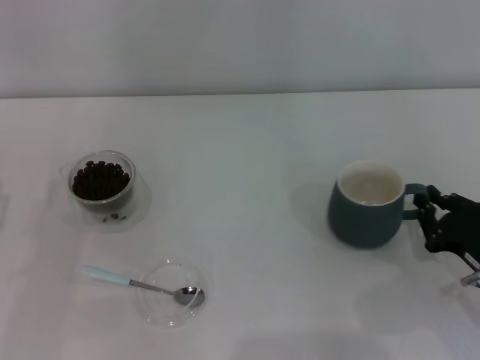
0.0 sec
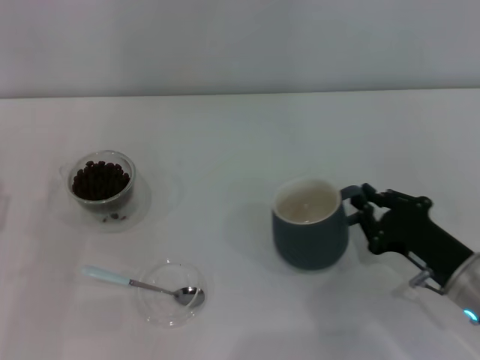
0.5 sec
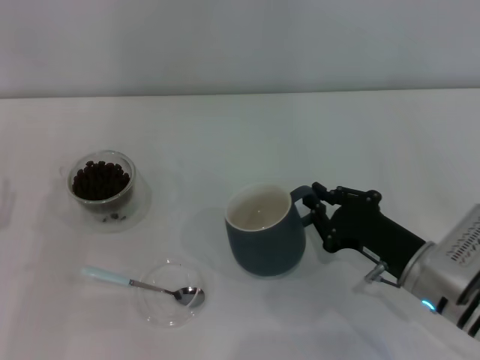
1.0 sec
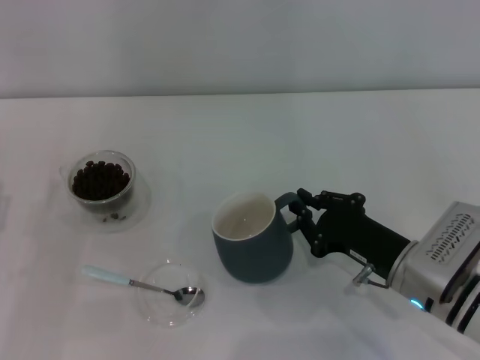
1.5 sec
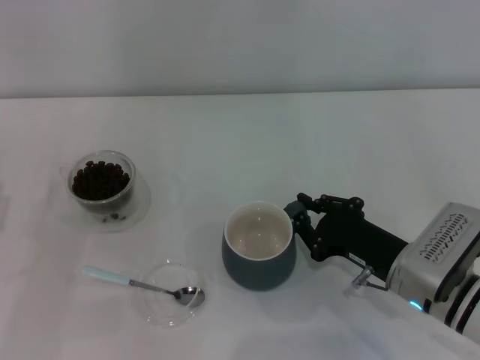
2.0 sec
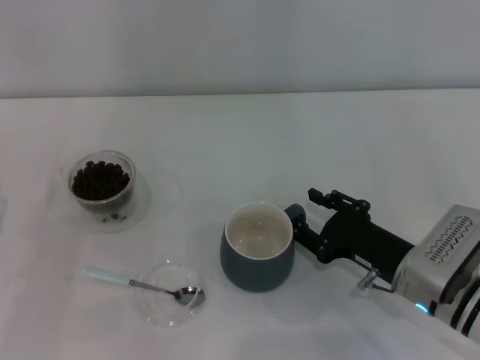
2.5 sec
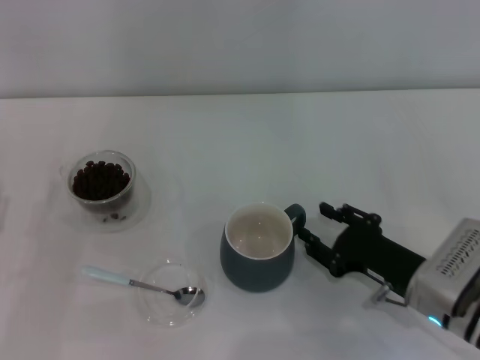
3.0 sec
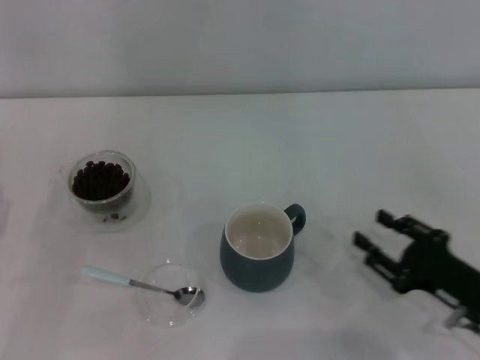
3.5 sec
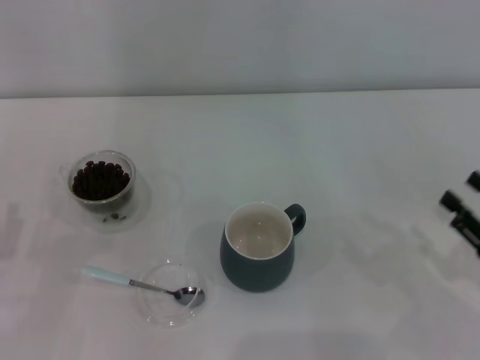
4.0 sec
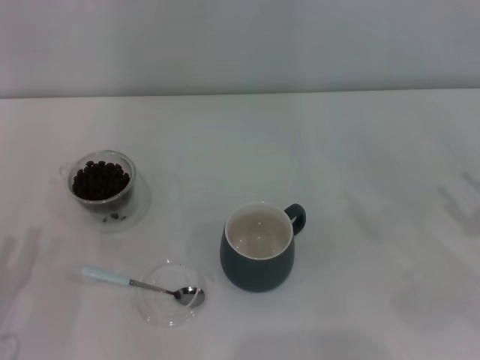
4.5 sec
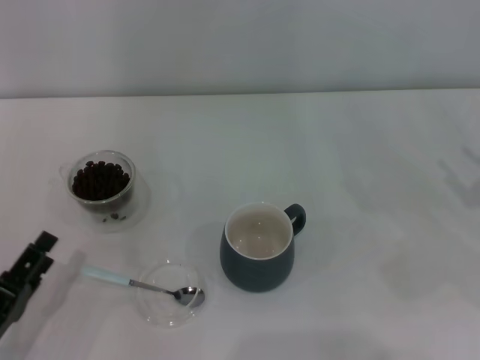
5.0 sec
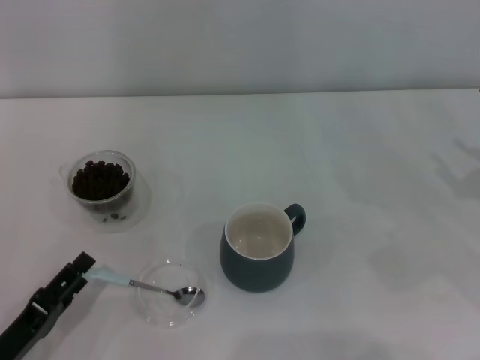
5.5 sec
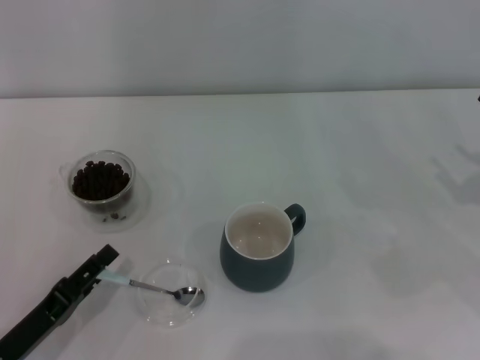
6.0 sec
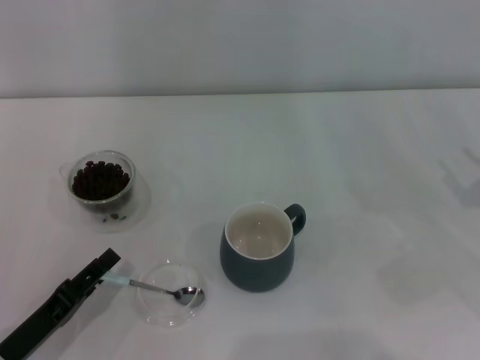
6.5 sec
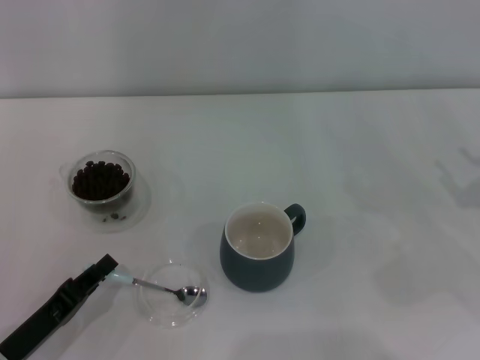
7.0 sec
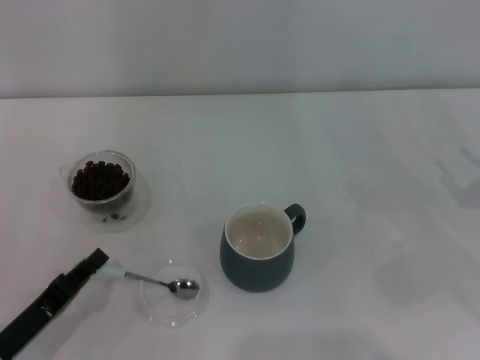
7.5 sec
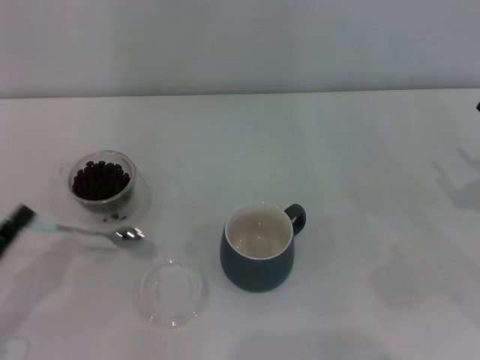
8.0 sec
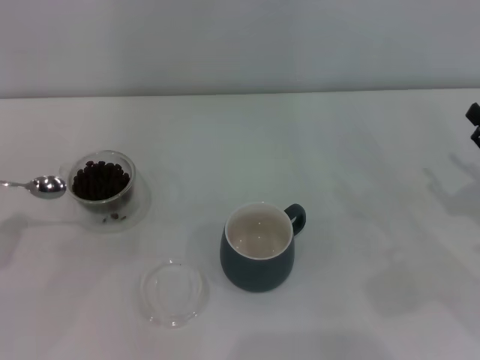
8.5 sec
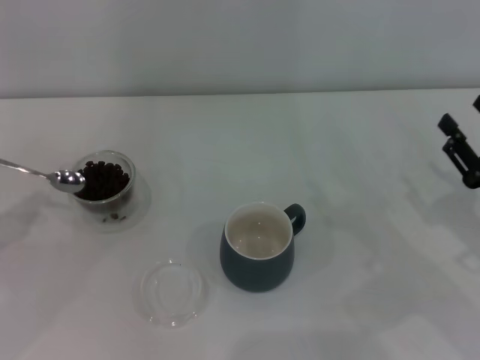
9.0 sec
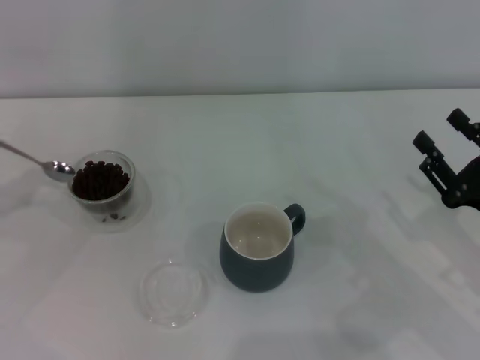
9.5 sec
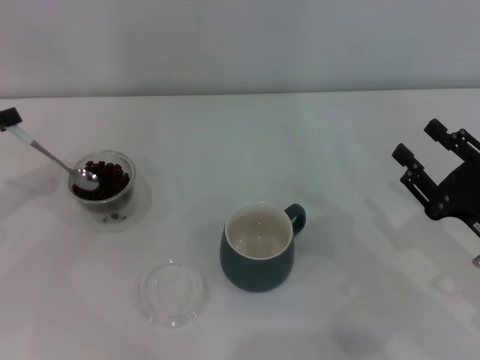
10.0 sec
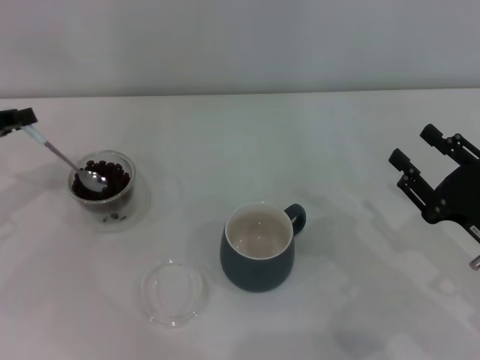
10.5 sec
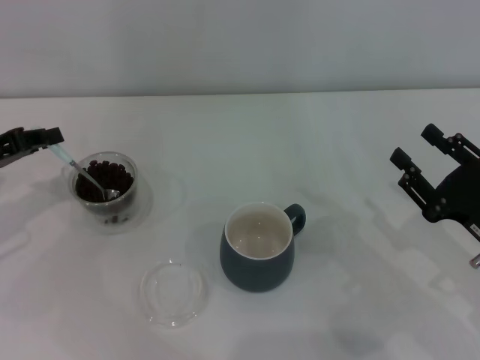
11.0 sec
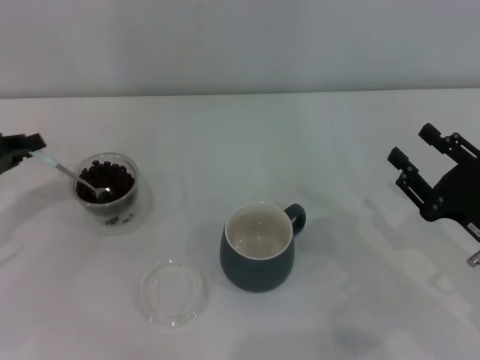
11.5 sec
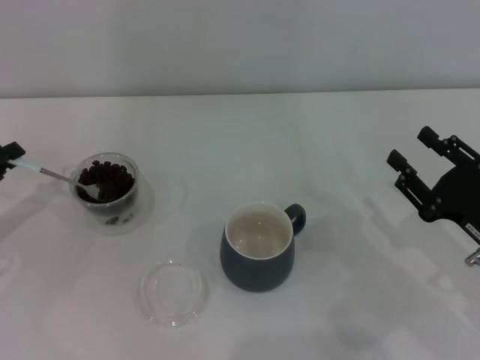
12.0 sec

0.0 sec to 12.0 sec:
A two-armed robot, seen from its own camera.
Task of the whole recording: Use a blue spoon to take out the coffee beans from the glass and pour them into the gray cup.
Step, 0.0 sec to 3.0 sec: Move the cup to the center of view with the left gripper.
Step, 3.5 sec to 7.5 sec: Pick up the spoon with the right gripper.
0.0 sec to 2.0 sec: The right gripper travels to the left by some 10 cm.
2.0 sec to 4.0 sec: The right gripper goes approximately 15 cm to the right and backward, and opens its fingers.
4.0 sec to 6.0 sec: The right gripper heads forward, covering about 10 cm, while the left gripper is displaced to the right by some 5 cm.
6.0 sec to 8.0 sec: The left gripper moves approximately 5 cm, and closes up.
8.0 sec to 10.0 sec: The right gripper shifts some 5 cm to the left. The left gripper travels forward and upward by about 20 cm.
10.0 sec to 12.0 sec: The left gripper moves roughly 5 cm.

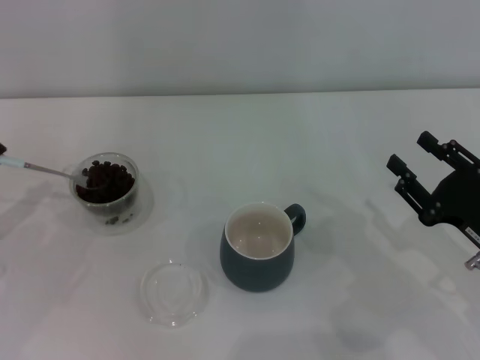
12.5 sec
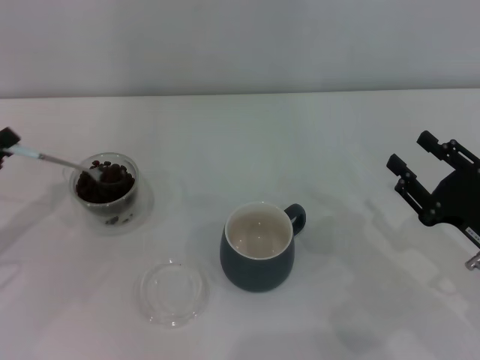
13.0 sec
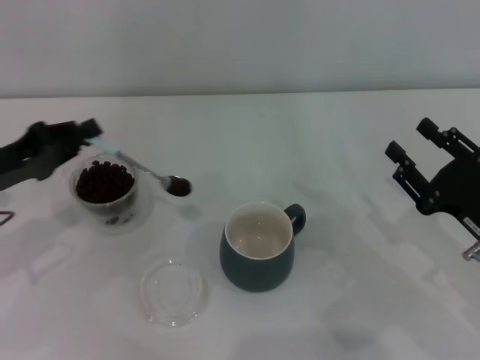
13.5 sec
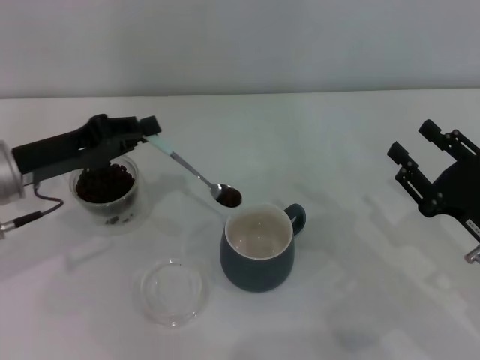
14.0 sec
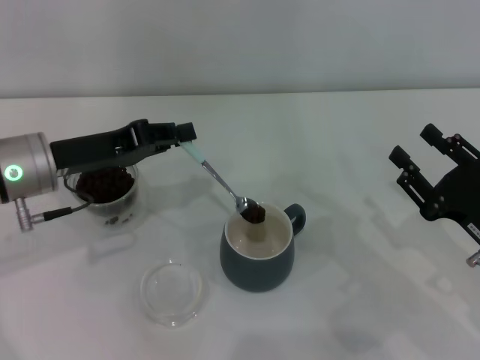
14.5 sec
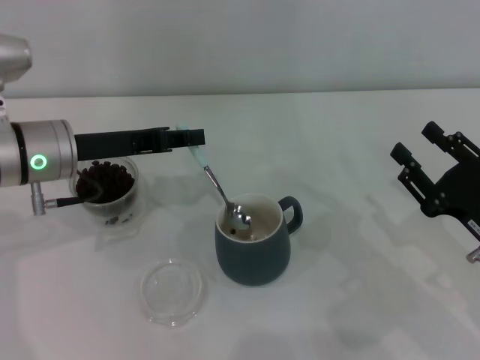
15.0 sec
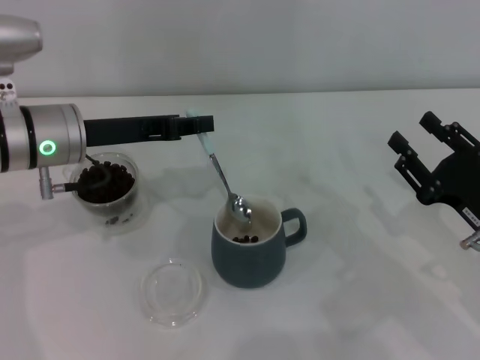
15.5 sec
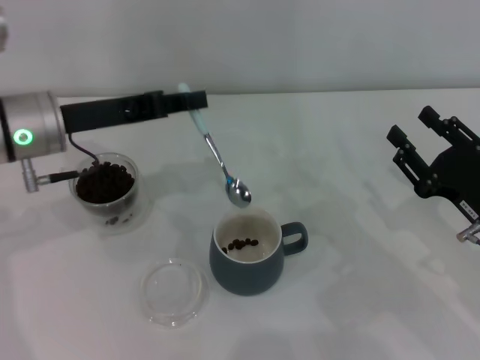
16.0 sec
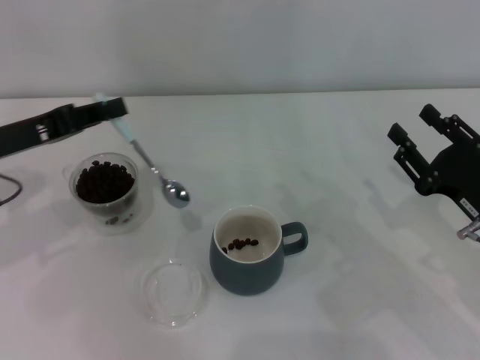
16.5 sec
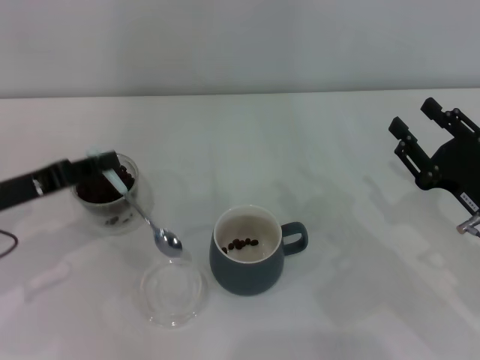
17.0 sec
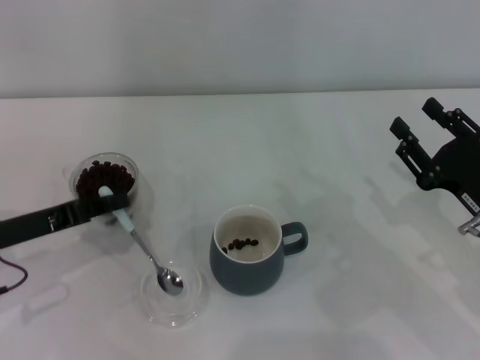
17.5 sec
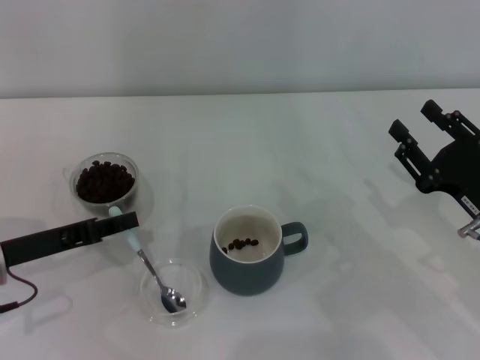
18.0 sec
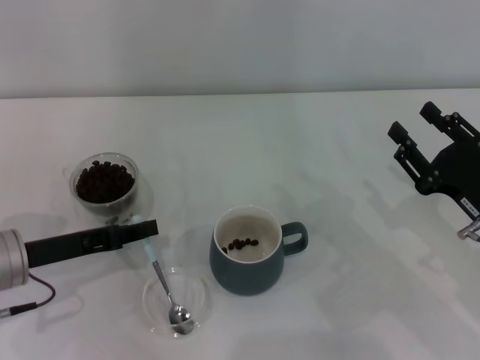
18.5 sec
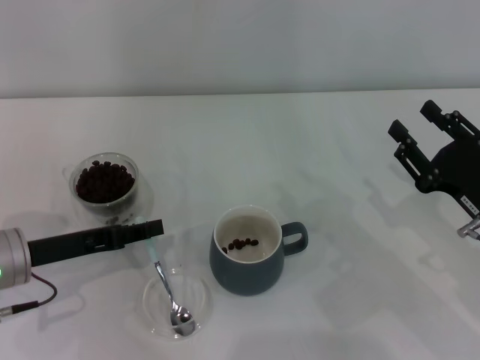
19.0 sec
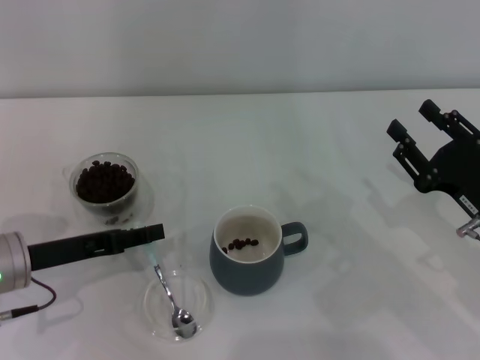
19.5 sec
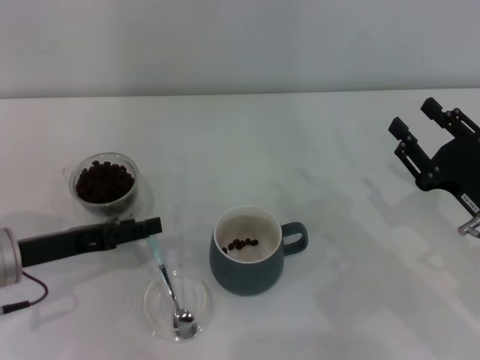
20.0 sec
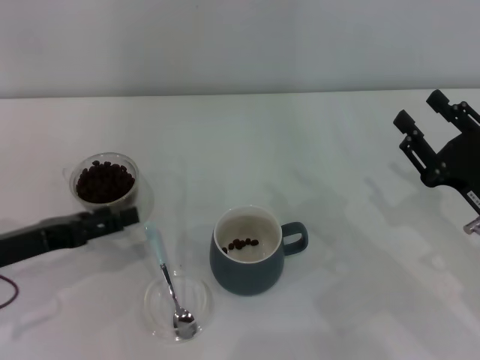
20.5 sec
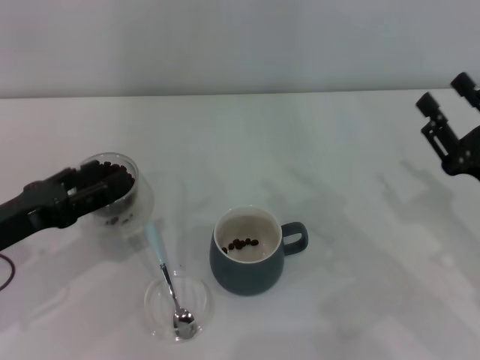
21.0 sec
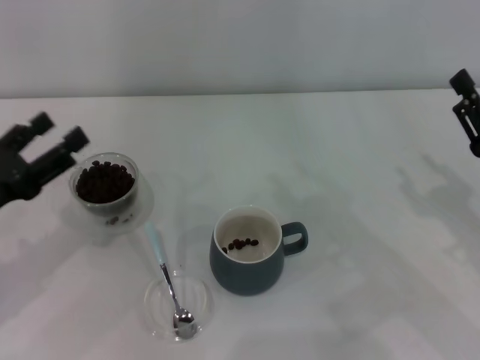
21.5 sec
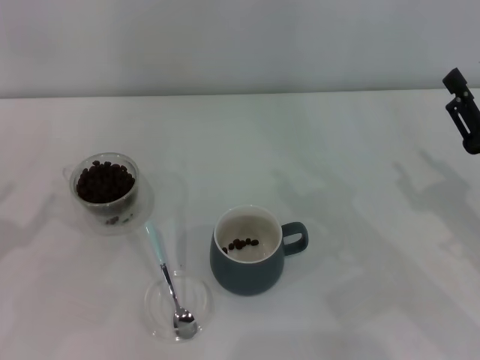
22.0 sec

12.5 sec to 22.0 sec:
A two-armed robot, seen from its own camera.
Task of the whole recording: Use a blue spoon to take out the coffee beans from the glass and pour them into the gray cup.
Step, 12.5 sec to 16.0 sec: Scoop a spoonful of beans into the cup with the right gripper.
12.5 sec to 14.5 sec: The left gripper shifts about 15 cm to the right and forward.
14.5 sec to 16.5 sec: The left gripper moves to the left, roughly 5 cm.
16.5 sec to 18.0 sec: The left gripper goes some 5 cm downward.
18.0 sec to 20.0 sec: The left gripper opens.
20.0 sec to 22.0 sec: The left gripper moves to the left and backward, some 10 cm.

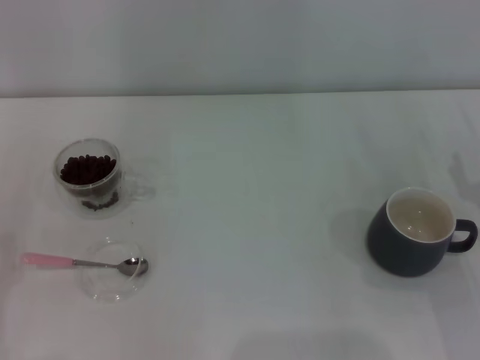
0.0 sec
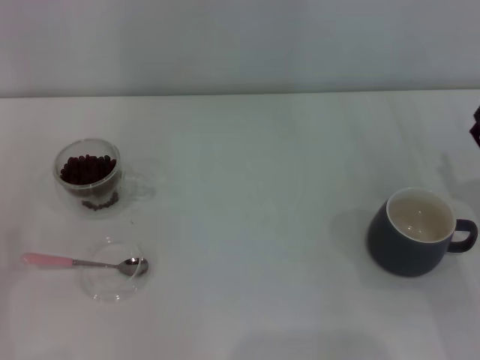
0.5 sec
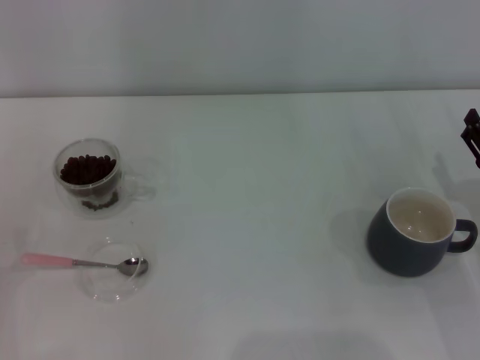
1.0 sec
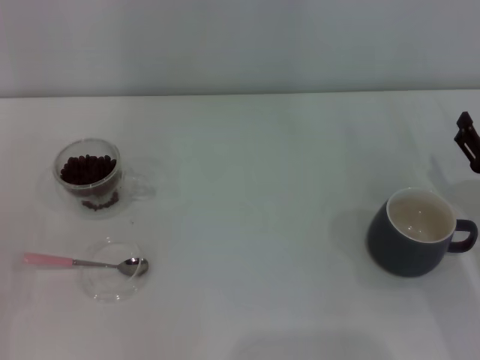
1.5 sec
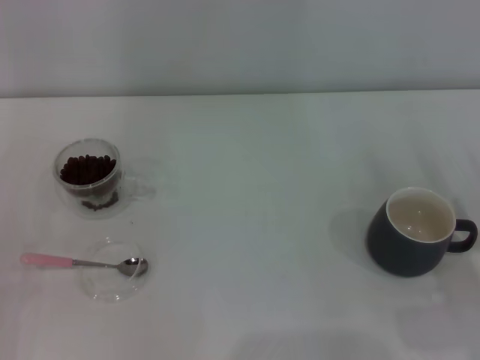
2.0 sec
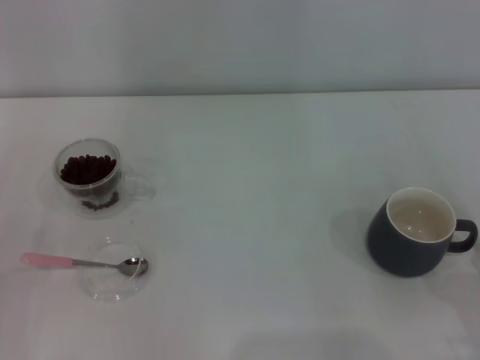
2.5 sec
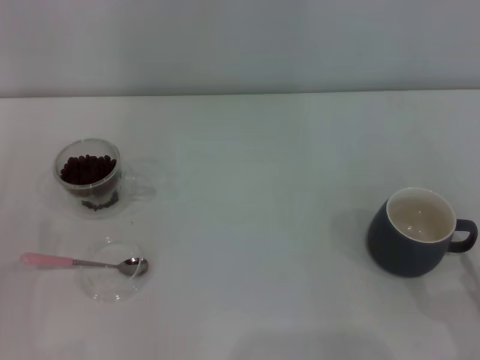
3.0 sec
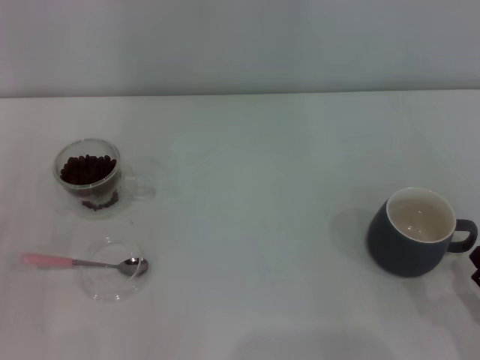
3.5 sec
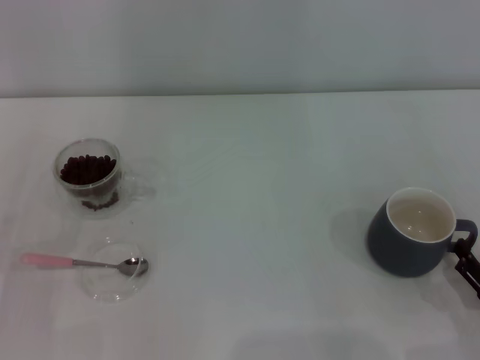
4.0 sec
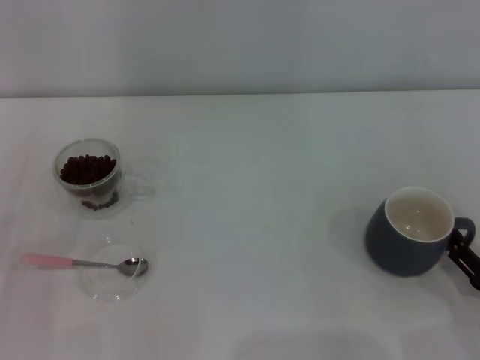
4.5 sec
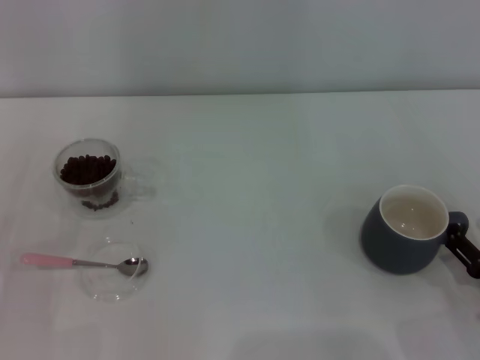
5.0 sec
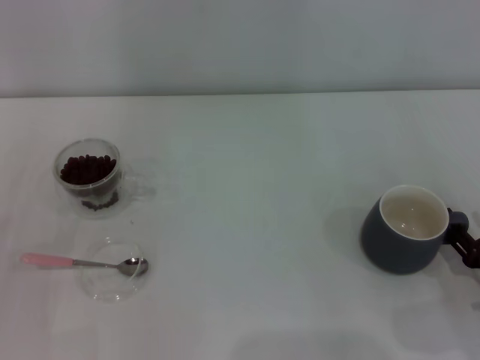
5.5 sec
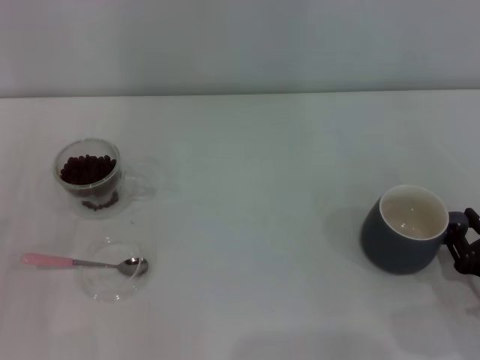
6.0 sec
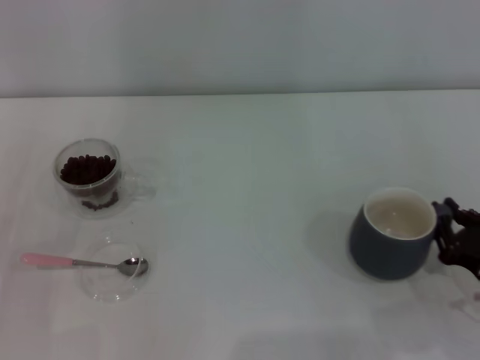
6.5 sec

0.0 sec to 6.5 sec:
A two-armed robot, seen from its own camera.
Task of the whole recording: Use a pink spoon to take out the coffee beans from the glass and pour them into the gray cup.
4.5 sec to 6.5 sec: The right gripper closes.
